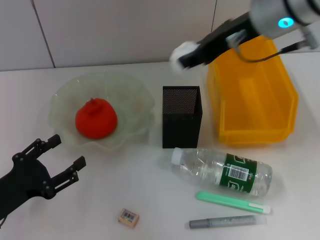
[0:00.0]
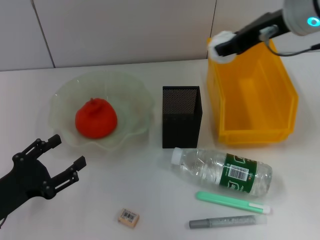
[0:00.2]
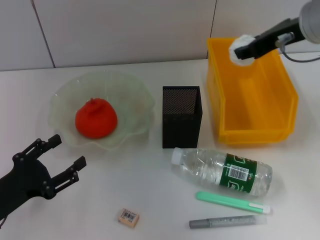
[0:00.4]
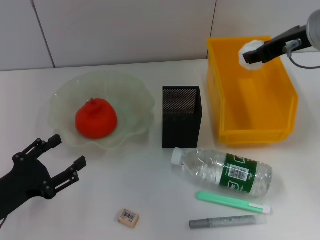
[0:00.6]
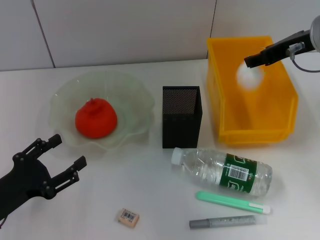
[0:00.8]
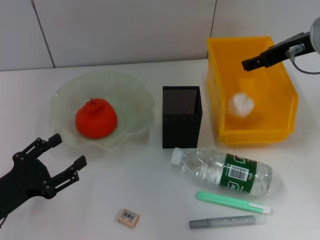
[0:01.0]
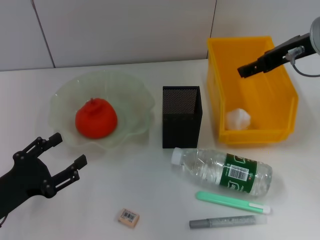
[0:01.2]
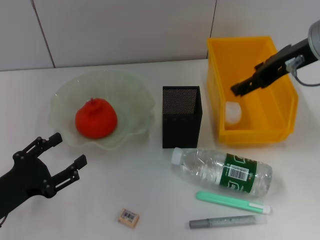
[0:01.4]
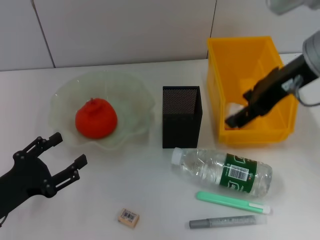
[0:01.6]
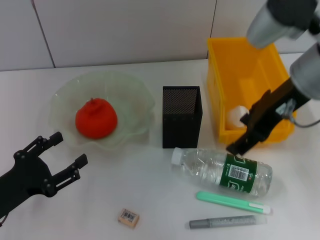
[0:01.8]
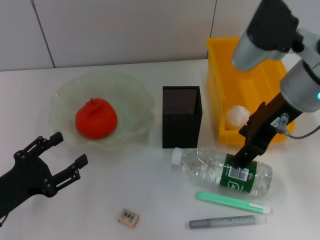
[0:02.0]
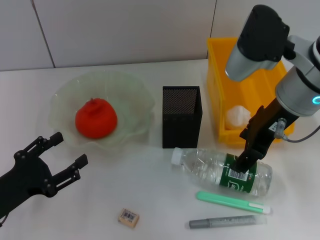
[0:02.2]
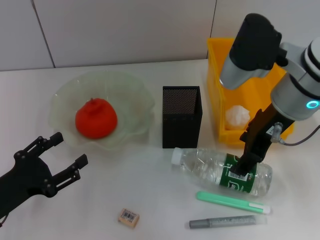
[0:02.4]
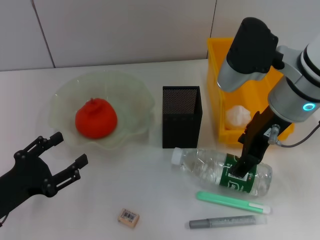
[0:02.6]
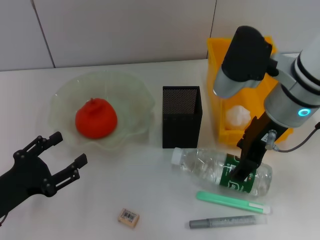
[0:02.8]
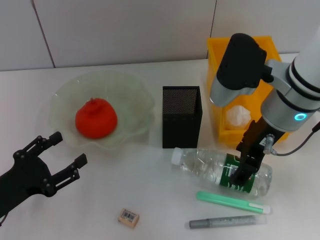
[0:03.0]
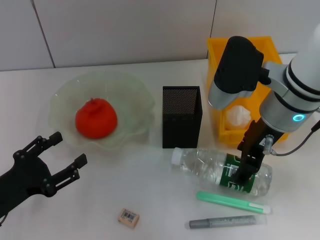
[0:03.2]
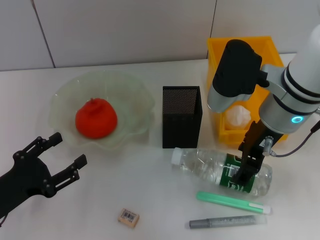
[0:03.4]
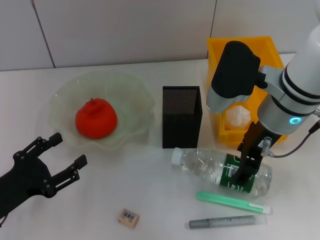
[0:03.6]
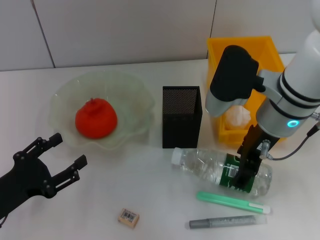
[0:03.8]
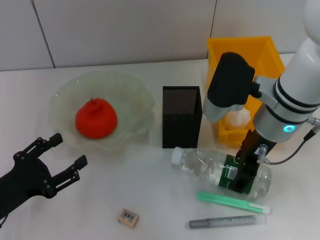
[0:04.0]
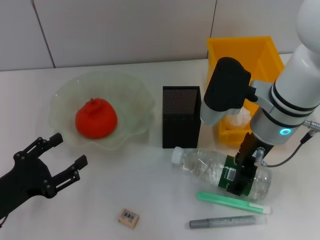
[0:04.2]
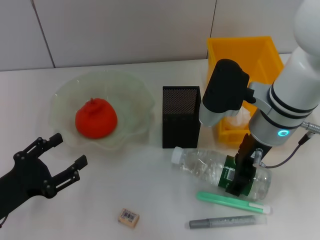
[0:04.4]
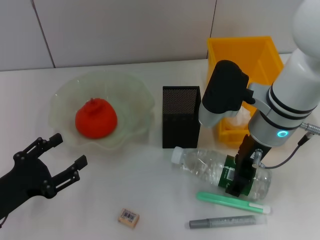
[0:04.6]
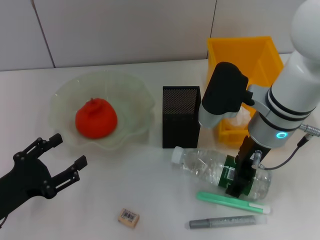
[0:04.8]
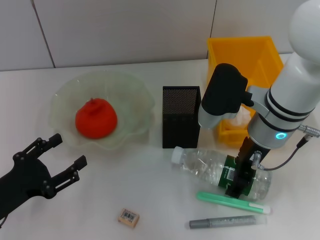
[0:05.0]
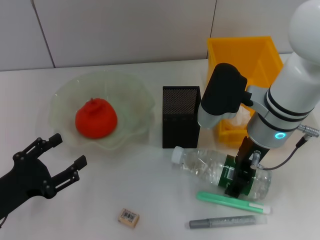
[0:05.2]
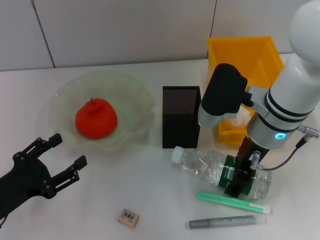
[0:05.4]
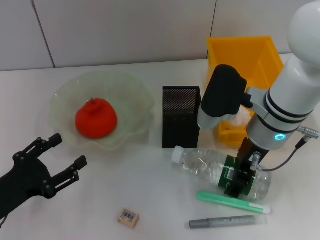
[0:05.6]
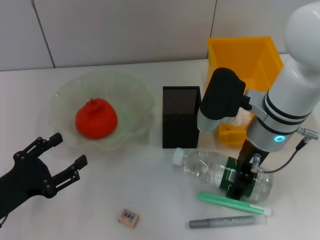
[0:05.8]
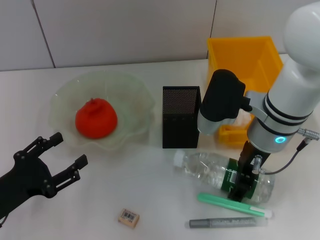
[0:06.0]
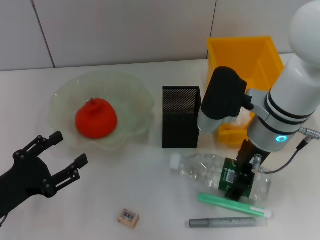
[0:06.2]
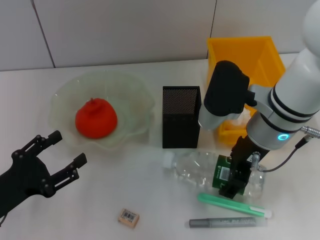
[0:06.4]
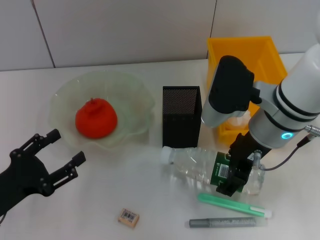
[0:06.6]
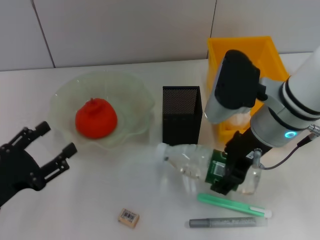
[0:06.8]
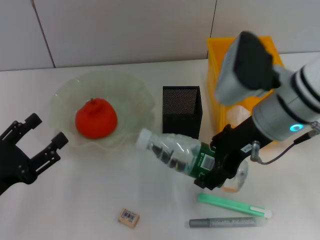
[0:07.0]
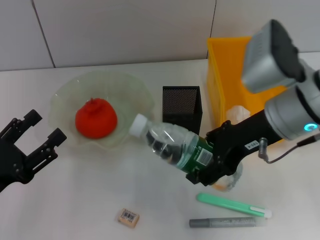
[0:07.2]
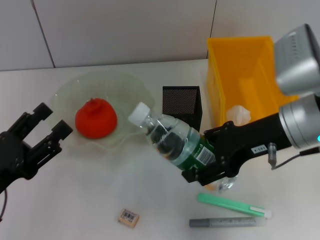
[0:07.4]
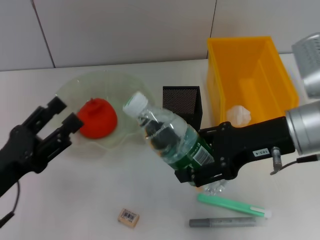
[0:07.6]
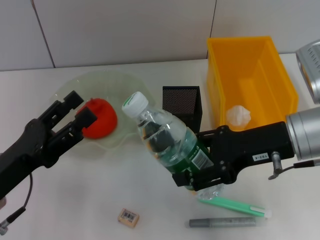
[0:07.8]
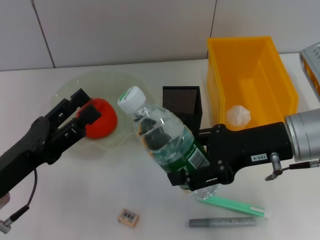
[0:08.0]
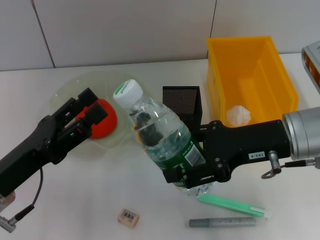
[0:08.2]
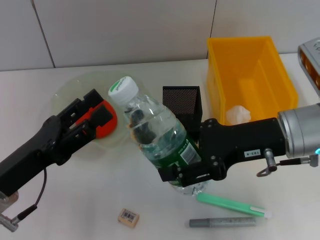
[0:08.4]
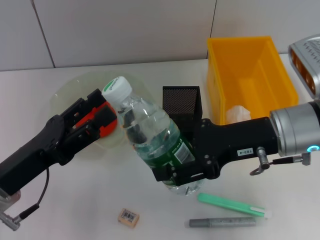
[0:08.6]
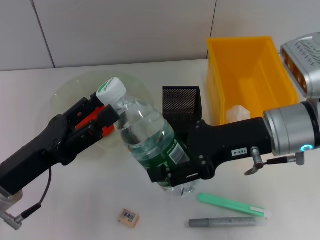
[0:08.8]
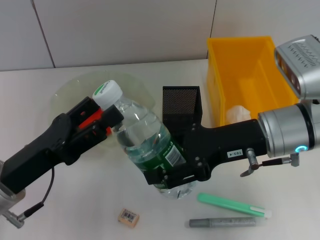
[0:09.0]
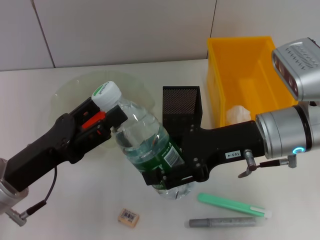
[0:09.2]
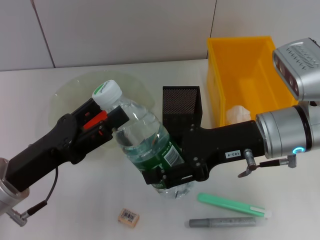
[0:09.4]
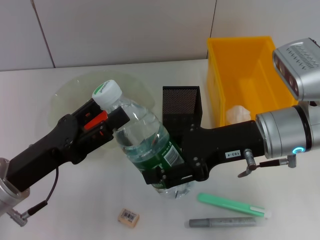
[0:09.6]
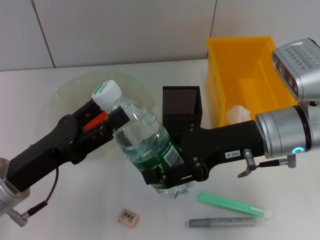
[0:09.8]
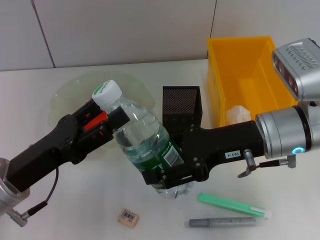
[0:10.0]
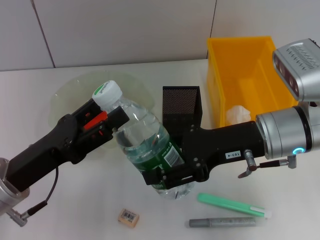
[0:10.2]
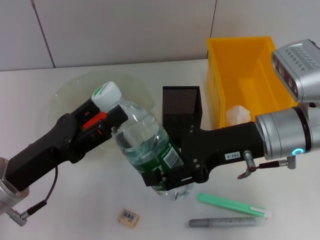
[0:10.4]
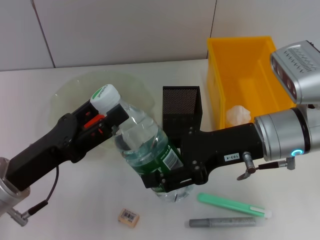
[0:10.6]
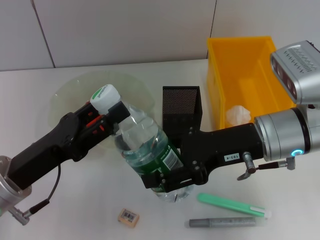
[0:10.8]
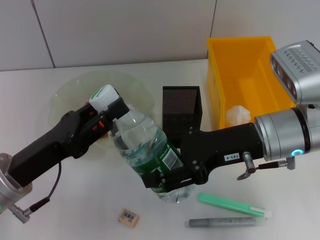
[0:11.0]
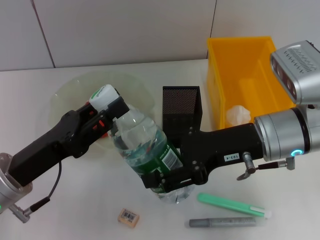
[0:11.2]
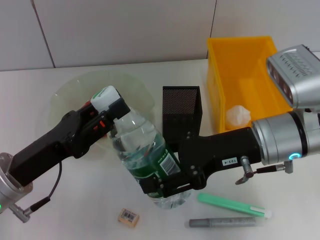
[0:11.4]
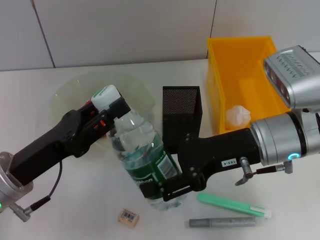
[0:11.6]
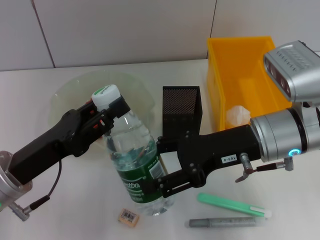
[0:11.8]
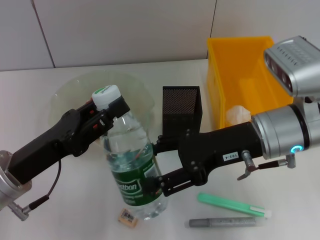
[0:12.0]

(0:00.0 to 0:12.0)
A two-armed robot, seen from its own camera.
Step, 0:01.2 - 0:06.0: Grab the water bottle with the right hand.
Step, 0:06.2 - 0:12.0: Pass the water bottle from the right hand to the left hand.
0:00.0 - 0:01.6: The right gripper opens its fingers.
0:01.6 - 0:03.0: The right gripper travels downward by about 5 cm.
0:03.0 - 0:06.0: The grippers make only small movements.
0:06.0 - 0:07.6: The right gripper goes about 5 cm to the right.
0:09.0 - 0:10.4: The two grippers keep their place.
0:10.4 - 0:12.0: The left gripper closes up.

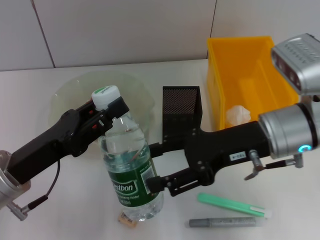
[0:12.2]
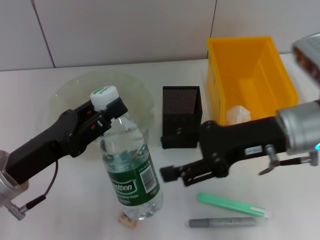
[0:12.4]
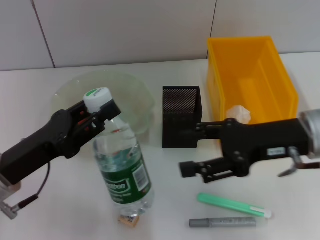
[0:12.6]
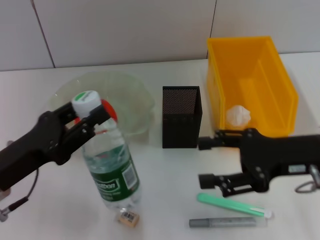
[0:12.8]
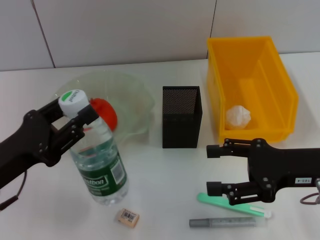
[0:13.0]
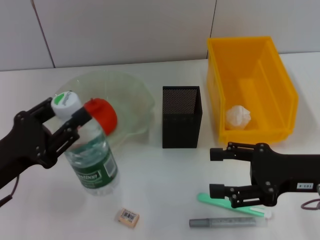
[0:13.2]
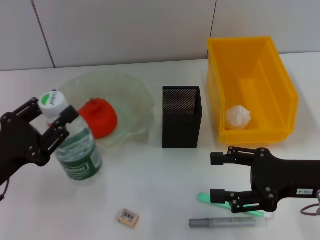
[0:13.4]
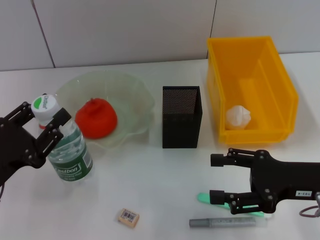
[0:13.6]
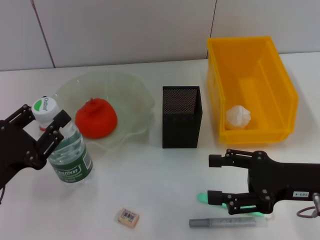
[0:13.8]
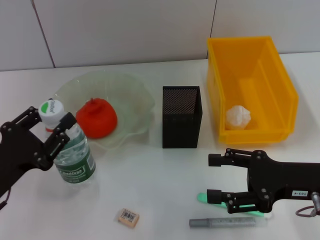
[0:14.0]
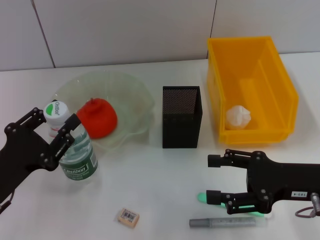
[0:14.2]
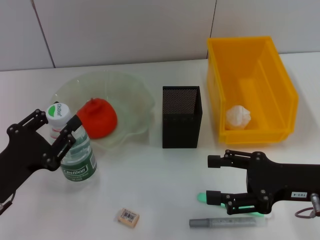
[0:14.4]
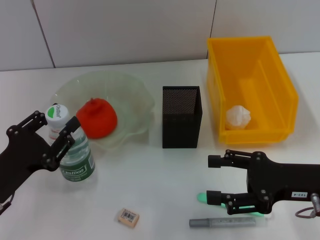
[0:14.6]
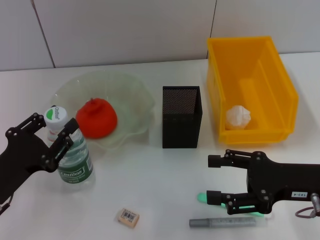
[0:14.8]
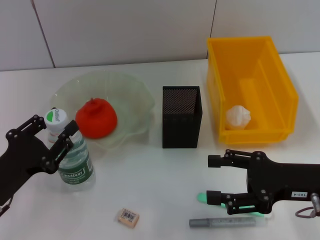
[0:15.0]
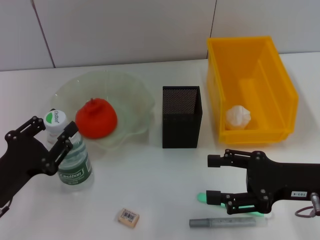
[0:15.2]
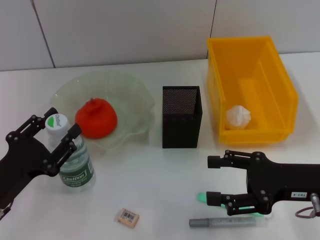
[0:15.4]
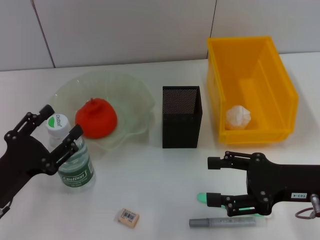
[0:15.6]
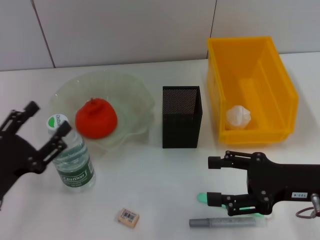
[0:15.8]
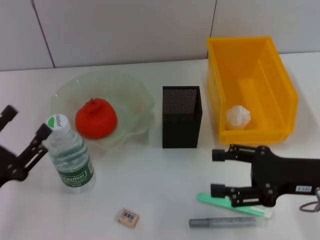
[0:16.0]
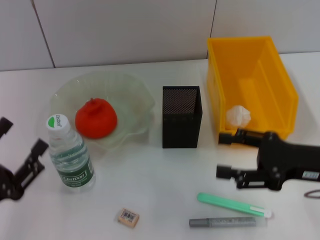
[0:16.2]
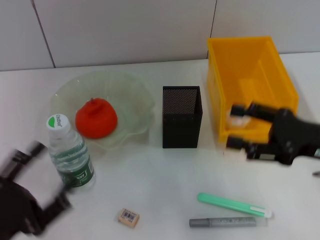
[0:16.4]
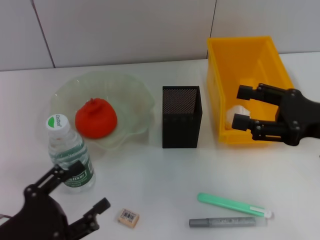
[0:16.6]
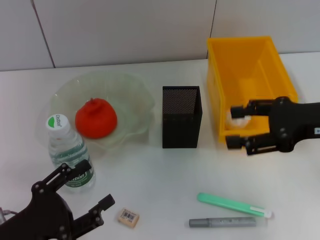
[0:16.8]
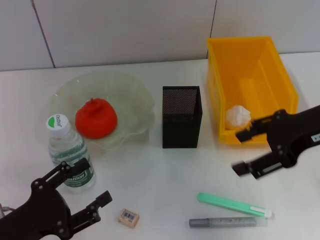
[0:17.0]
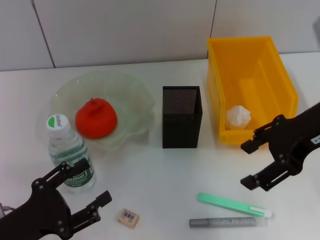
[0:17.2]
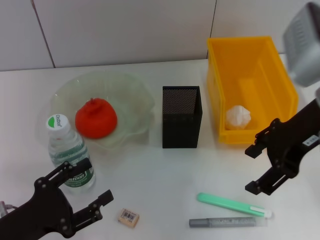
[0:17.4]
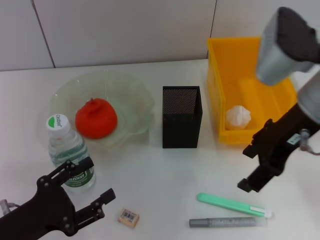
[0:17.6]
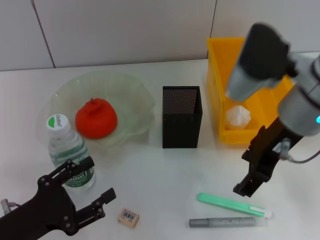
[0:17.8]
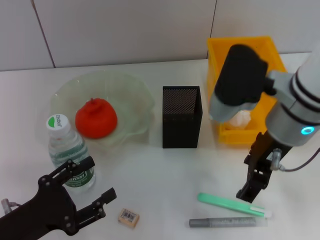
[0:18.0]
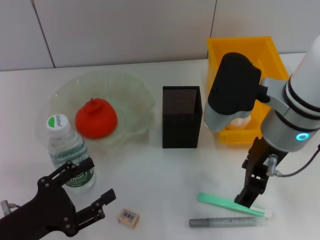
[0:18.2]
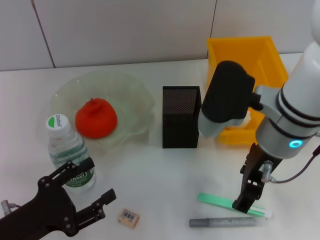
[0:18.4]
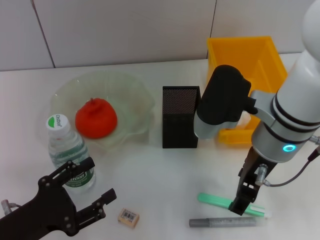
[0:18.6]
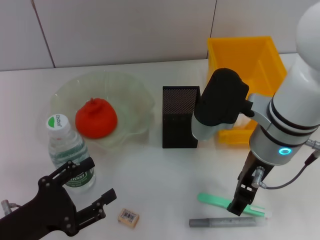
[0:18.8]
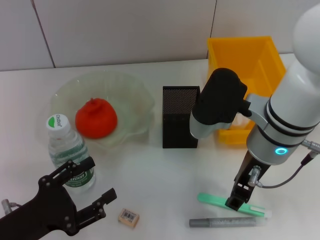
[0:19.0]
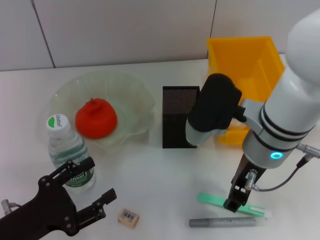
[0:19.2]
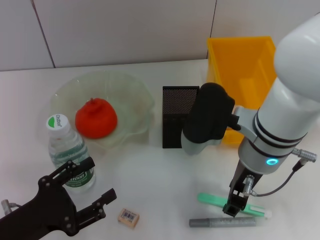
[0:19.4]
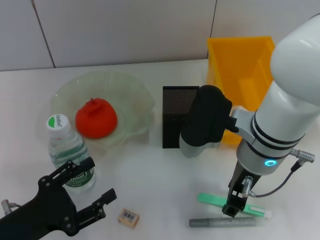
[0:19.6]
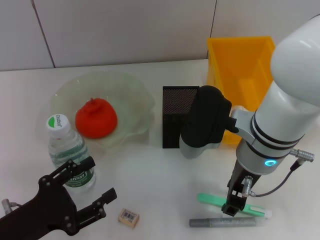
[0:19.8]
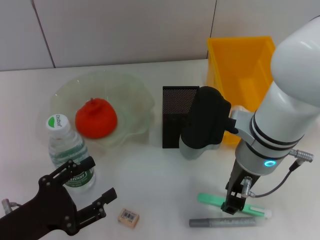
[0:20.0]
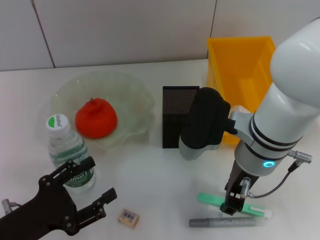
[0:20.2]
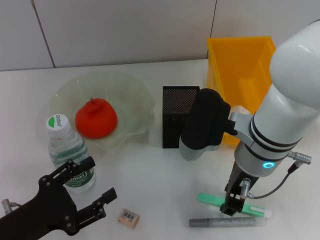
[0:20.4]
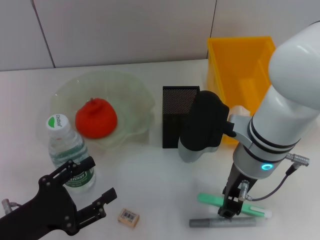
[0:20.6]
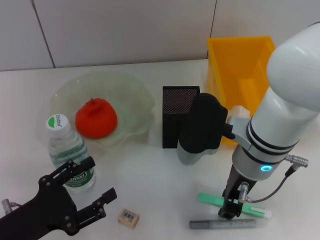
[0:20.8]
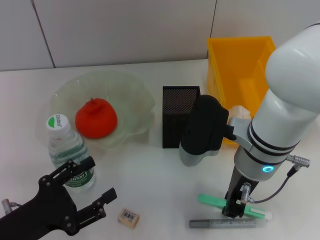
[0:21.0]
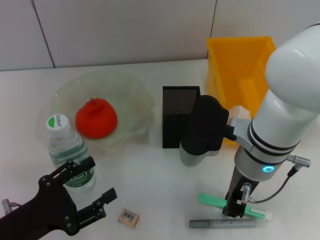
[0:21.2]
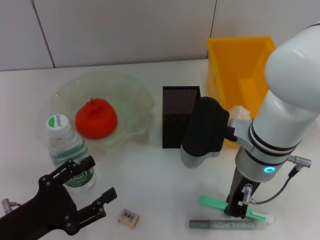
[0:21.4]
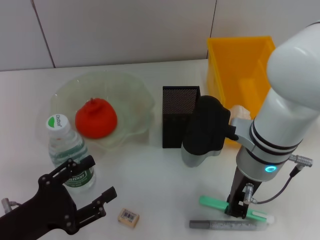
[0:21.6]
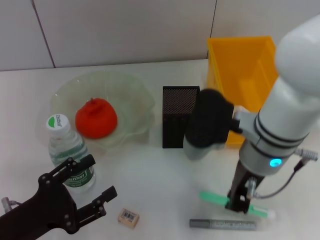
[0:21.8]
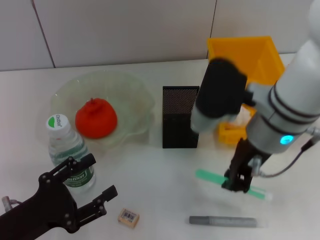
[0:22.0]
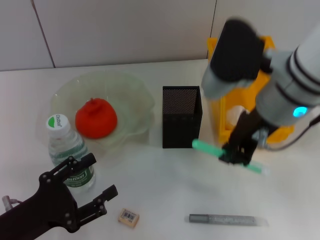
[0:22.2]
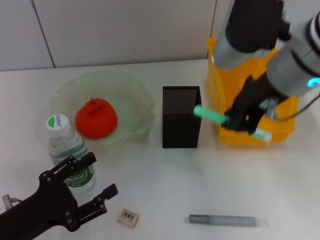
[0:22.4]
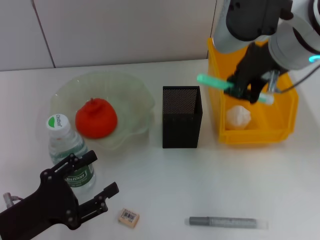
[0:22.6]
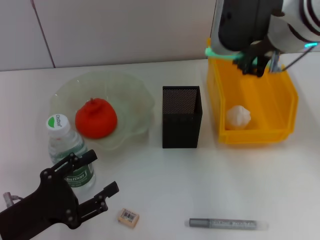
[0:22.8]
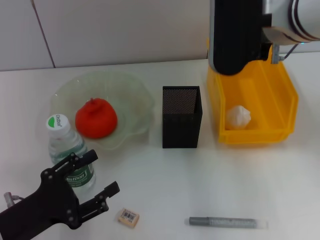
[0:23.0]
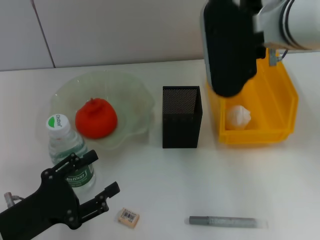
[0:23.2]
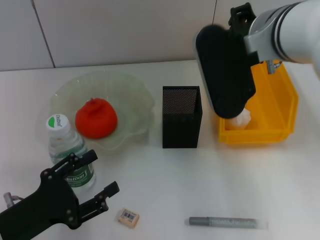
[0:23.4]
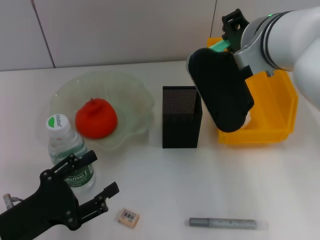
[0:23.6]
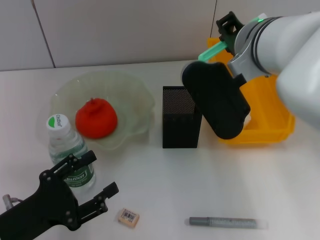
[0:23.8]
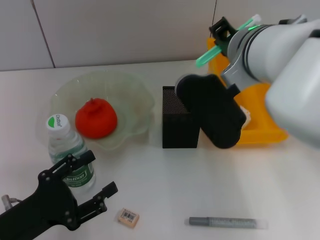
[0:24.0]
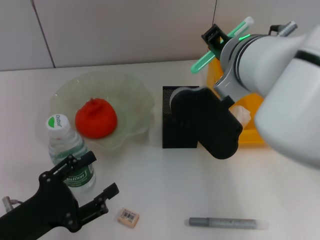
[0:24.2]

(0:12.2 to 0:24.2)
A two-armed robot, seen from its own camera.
Step, 0:12.2 - 0:15.8: Place the water bottle on the table with the left hand.
Step, 0:16.0 - 0:21.4: Grab the blue utility knife with the right hand.
0:12.2 - 0:13.8: The right gripper travels to the right, backward and downward by about 10 cm; the left gripper moves to the left, about 5 cm.
0:13.8 - 0:15.2: The grippers move only a little.
0:15.2 - 0:16.6: The right gripper heads upward, covering some 5 cm; the left gripper heads backward, covering some 5 cm, and opens up.
0:16.6 - 0:18.2: The right gripper shifts roughly 15 cm to the left.
0:18.2 - 0:19.8: The right gripper moves some 5 cm, and closes up.
0:19.8 - 0:21.2: Both grippers stay put.
0:21.2 - 0:22.6: The right gripper is displaced upward by roughly 15 cm.
0:22.6 - 0:24.2: The right gripper heads to the left and downward, covering roughly 10 cm.
